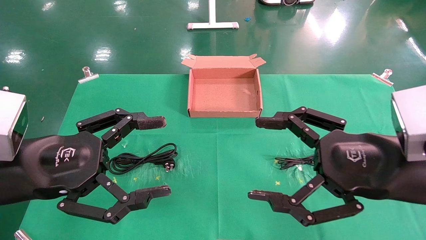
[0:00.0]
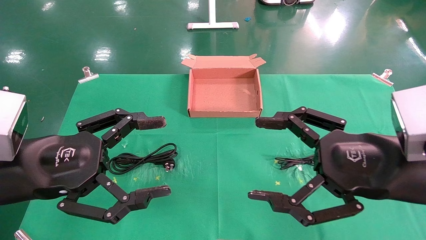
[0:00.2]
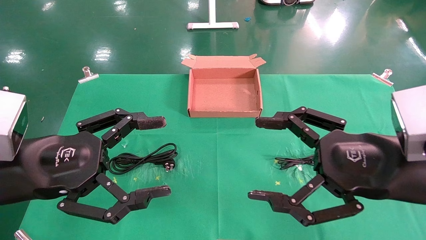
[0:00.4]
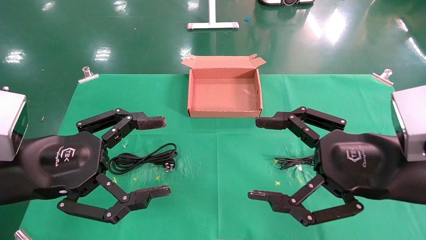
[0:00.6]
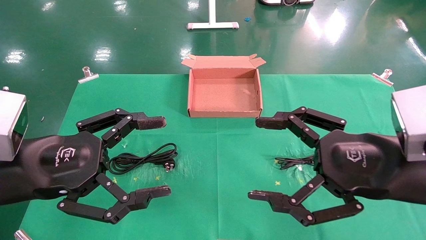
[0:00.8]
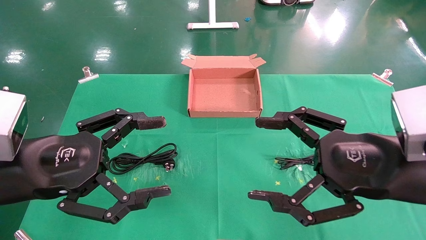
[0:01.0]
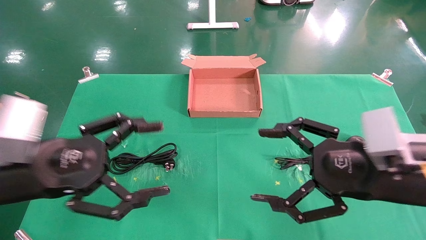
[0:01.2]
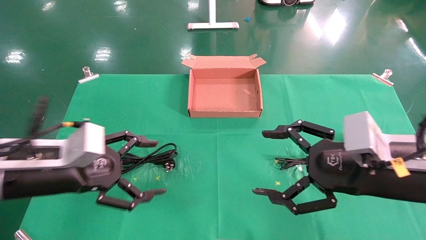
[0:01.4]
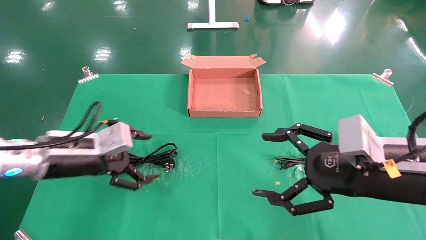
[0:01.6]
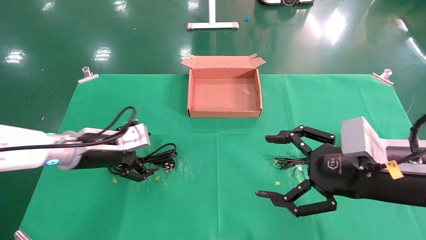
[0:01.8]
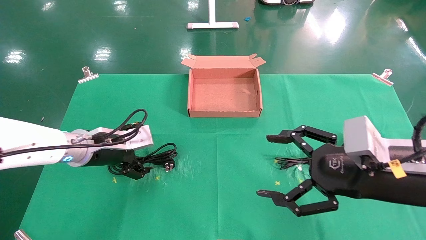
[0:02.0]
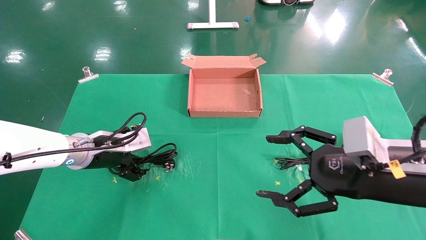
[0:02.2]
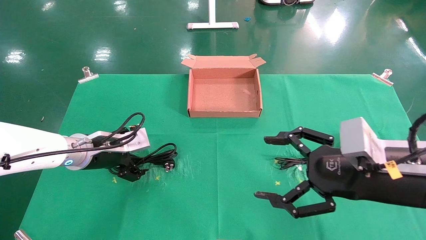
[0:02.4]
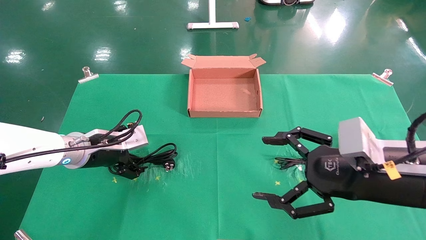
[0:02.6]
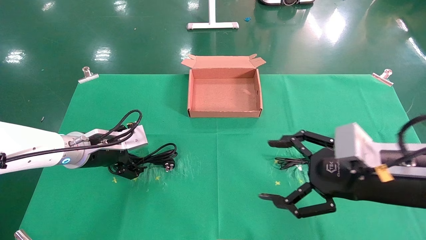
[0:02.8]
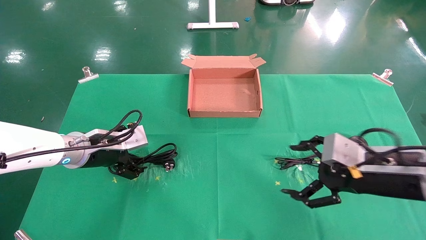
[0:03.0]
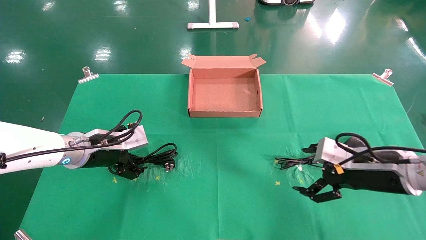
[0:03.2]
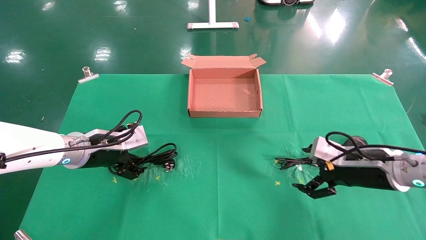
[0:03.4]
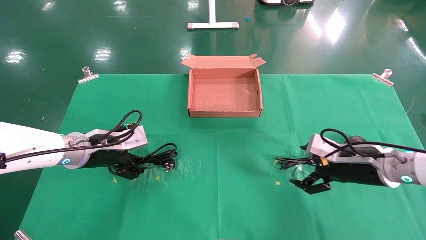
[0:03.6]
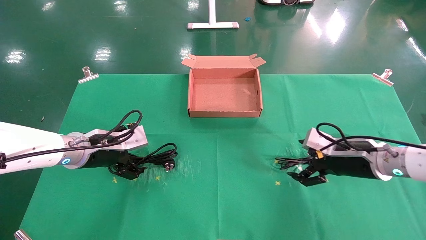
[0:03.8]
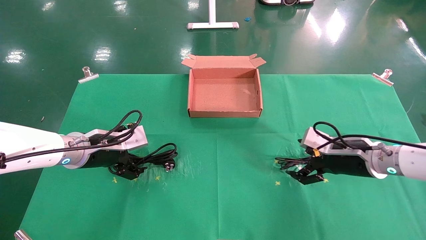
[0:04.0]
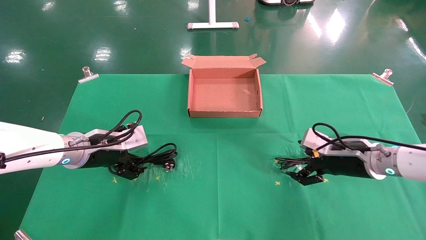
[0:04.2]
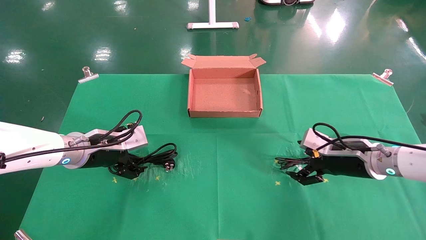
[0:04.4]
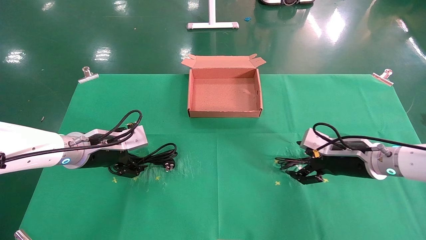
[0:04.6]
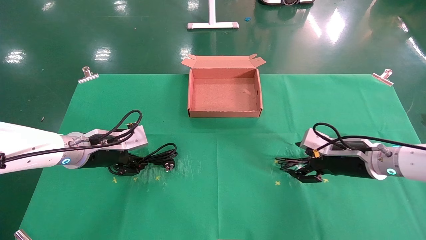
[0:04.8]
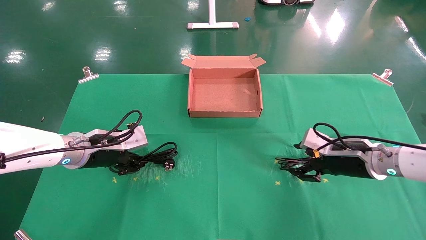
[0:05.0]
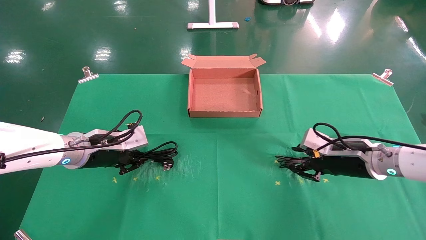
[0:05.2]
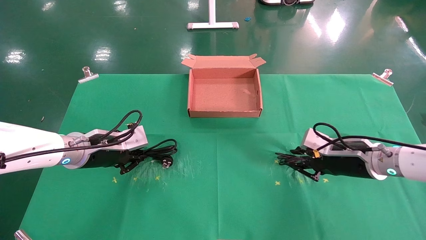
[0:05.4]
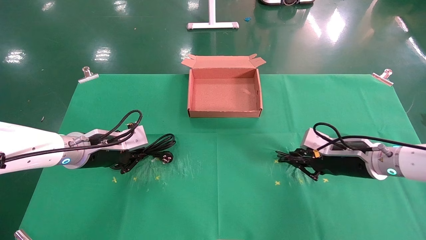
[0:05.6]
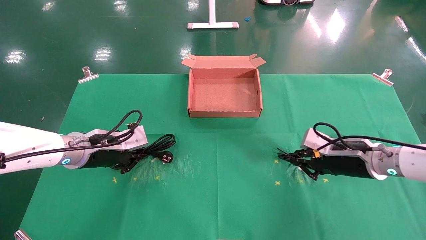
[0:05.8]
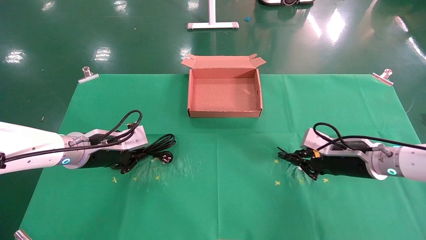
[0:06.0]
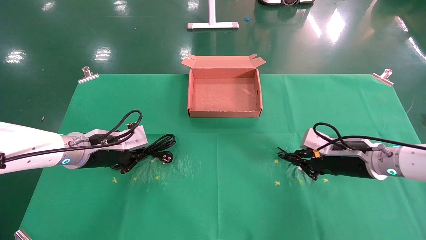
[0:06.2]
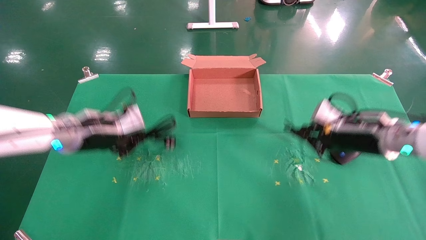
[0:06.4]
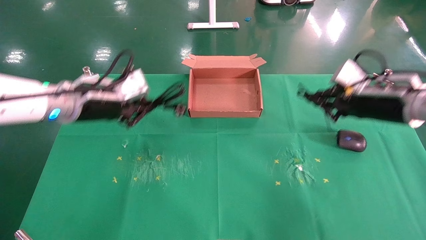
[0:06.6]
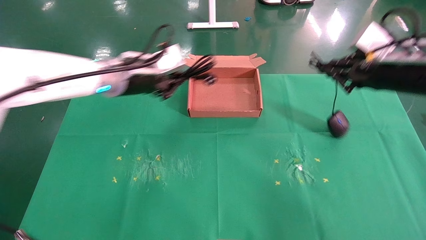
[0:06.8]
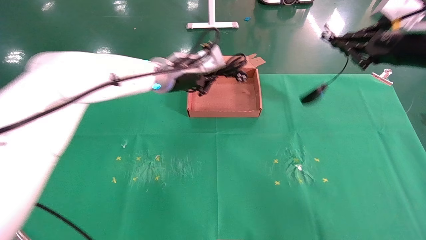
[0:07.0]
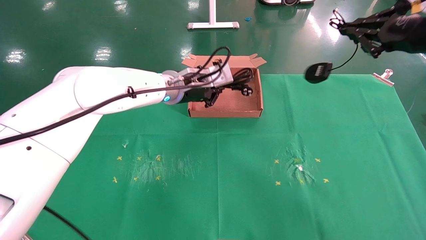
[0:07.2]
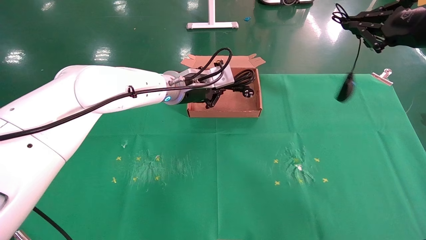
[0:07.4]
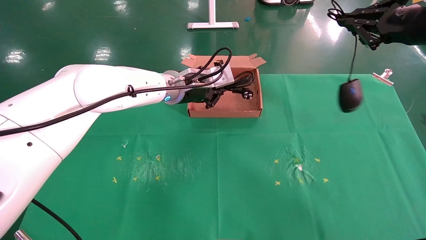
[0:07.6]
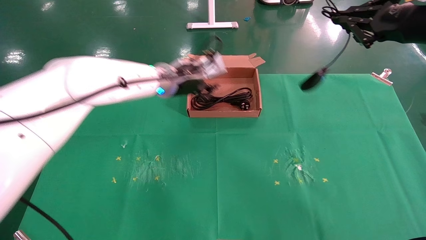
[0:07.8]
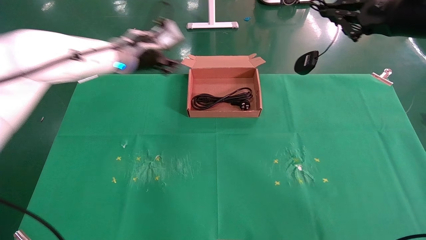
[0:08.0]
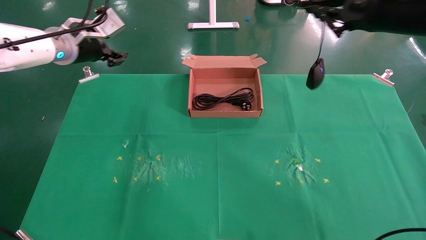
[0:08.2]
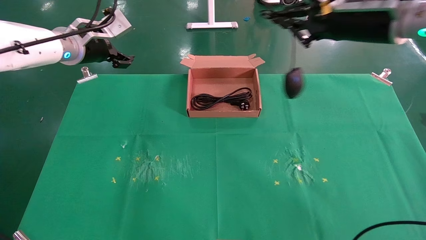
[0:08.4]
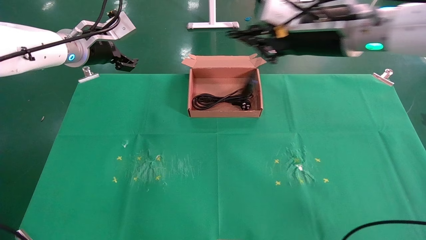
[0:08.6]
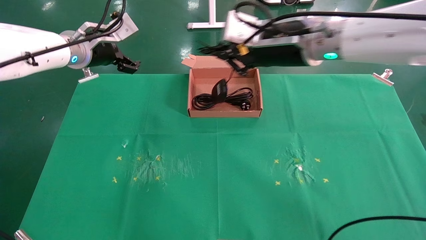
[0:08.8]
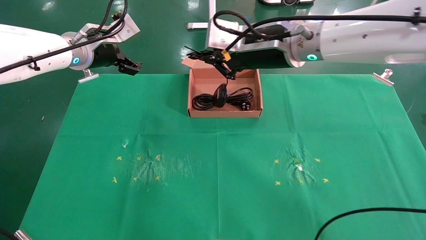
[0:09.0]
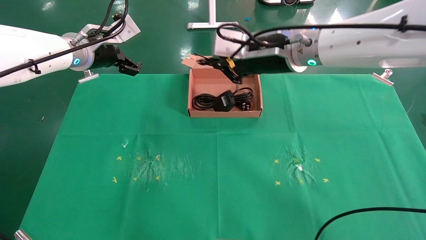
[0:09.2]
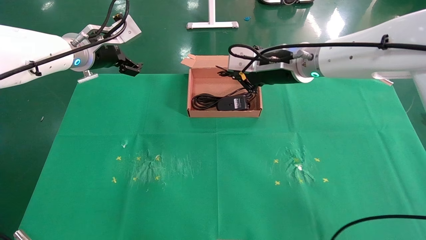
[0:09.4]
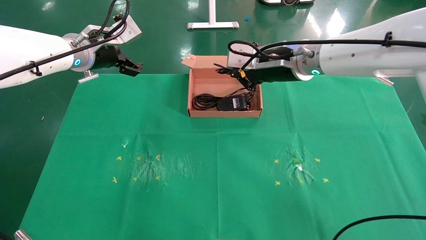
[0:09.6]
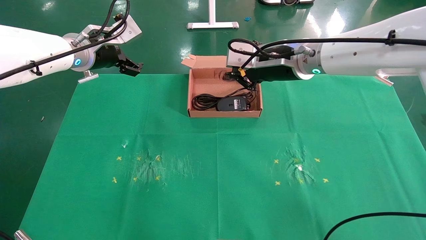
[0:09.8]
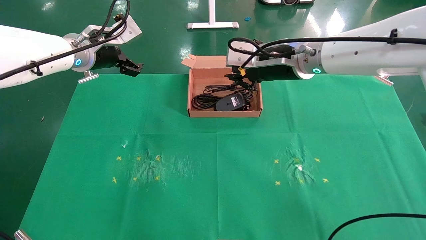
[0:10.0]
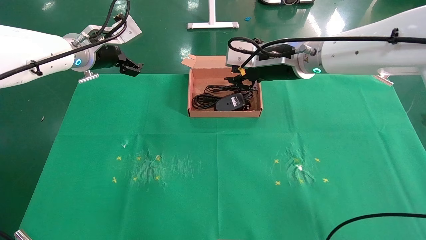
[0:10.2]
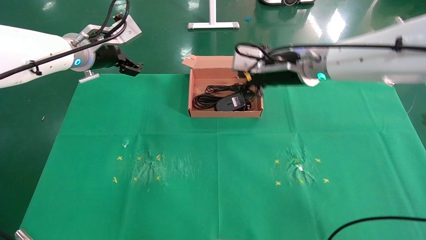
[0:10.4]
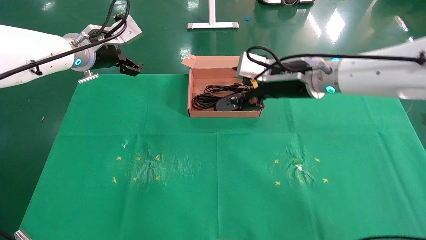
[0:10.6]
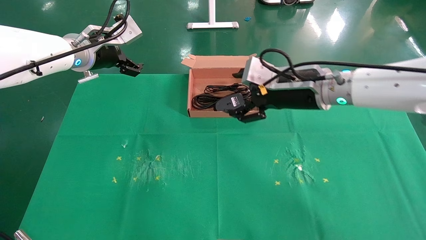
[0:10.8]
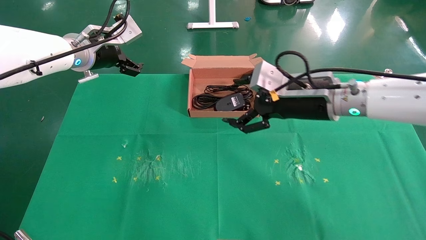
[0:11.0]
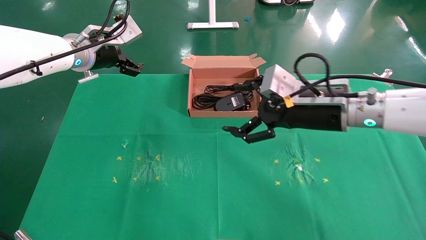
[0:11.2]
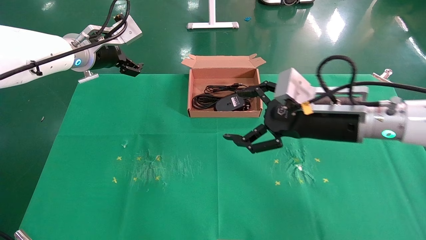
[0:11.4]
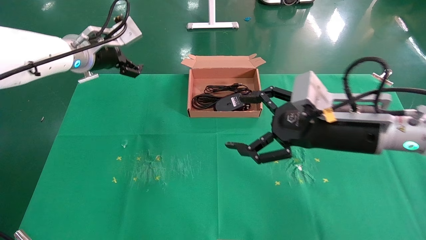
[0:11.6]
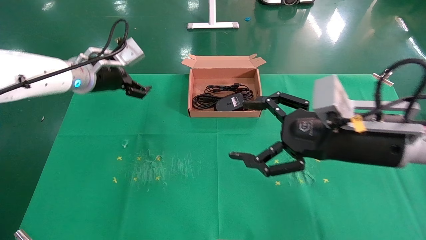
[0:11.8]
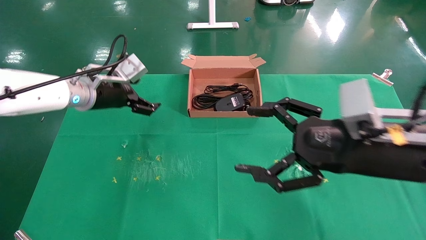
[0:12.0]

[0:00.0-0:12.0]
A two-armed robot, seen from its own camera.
Task of the whole recording: grasp data cable left put into box grasp mouse right put into box.
Step, 0:01.4 to 0:06.0: Simultaneously pick up the mouse and power cord from the accessory packaging area.
Step, 0:06.2 to 0:10.0: Place the mouse and power cord into the box.
0:00.0 to 0:01.6: The left gripper shifts approximately 15 cm forward and downward.
0:01.6 to 0:03.0: The right gripper ends up roughly 5 cm from where it was, while the left gripper heads forward, covering roughly 5 cm.
0:03.0 to 0:04.4: The right gripper travels forward by about 10 cm.
0:04.4 to 0:06.0: The right gripper closes. The left gripper closes.
0:06.0 to 0:07.6: The left gripper is displaced to the right, upward and forward by some 25 cm. The right gripper is displaced upward by about 25 cm.
0:07.6 to 0:09.0: The right gripper shifts some 25 cm to the left; the left gripper moves to the left and upward, about 20 cm, and opens up.
0:09.0 to 0:10.4: The right gripper shifts by roughly 5 cm, and opens.
0:10.4 to 0:12.0: The right gripper heads backward, to the right and downward, covering roughly 20 cm, and opens its fingers. The left gripper is displaced downward by about 10 cm.

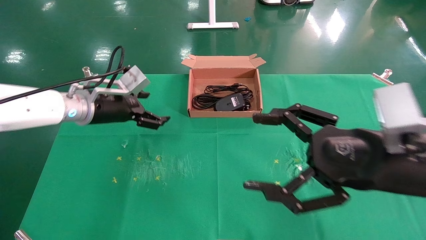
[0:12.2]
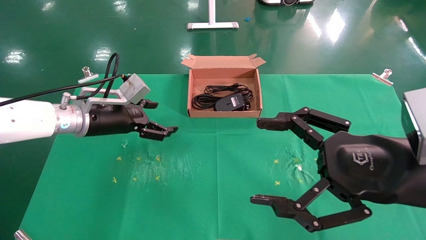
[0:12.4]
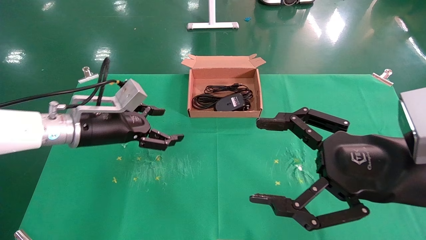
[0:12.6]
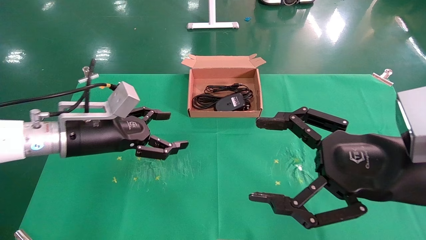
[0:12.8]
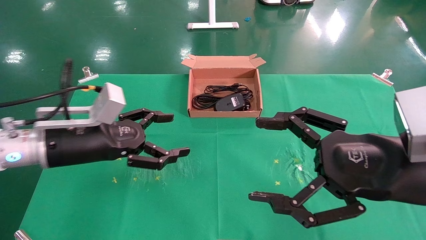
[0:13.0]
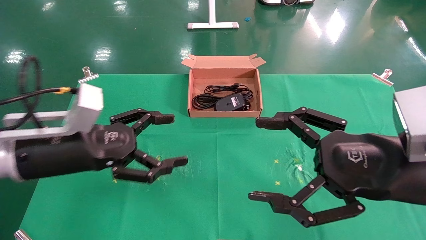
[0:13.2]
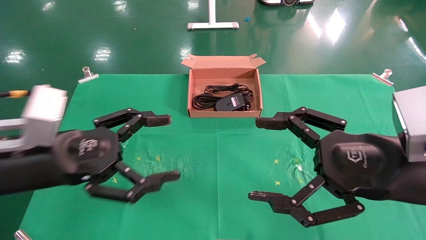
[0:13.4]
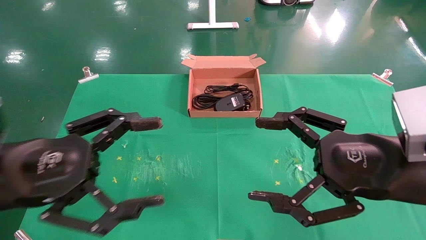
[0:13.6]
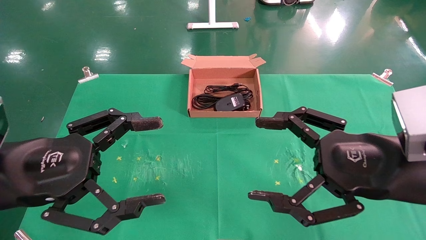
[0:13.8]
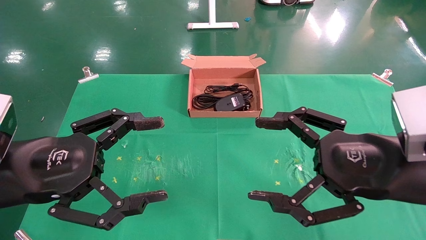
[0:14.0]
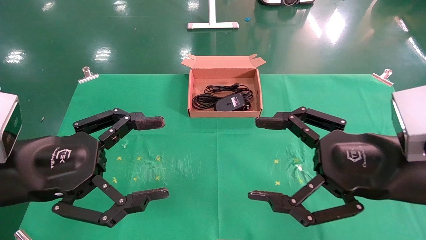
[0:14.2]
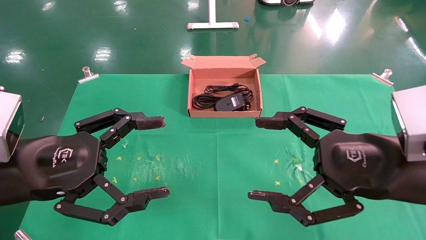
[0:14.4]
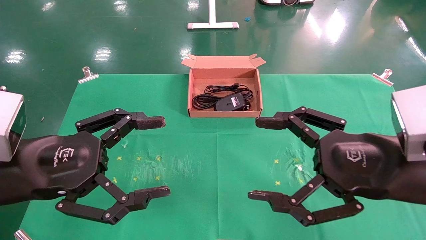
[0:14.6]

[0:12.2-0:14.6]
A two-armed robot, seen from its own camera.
Task of the whole recording: grasp data cable left put into box grasp mouse right put into box.
0:12.2 to 0:13.4: The left gripper moves backward, some 20 cm.
0:13.4 to 0:14.6: There are only small adjustments of the grippers.
